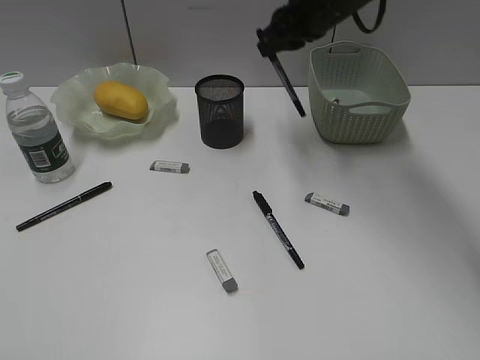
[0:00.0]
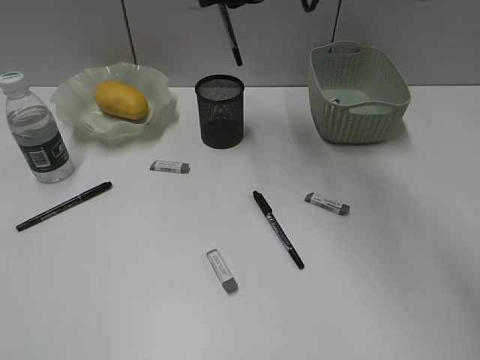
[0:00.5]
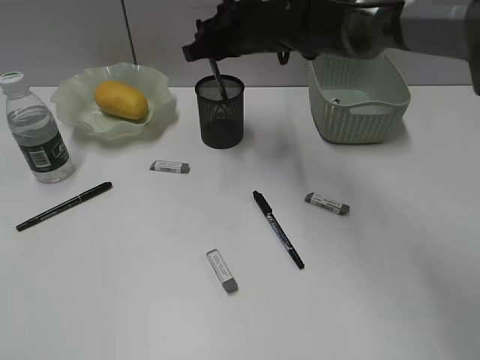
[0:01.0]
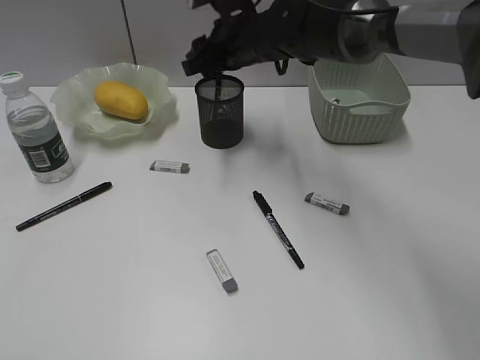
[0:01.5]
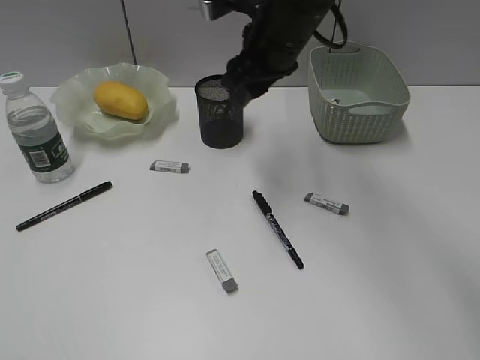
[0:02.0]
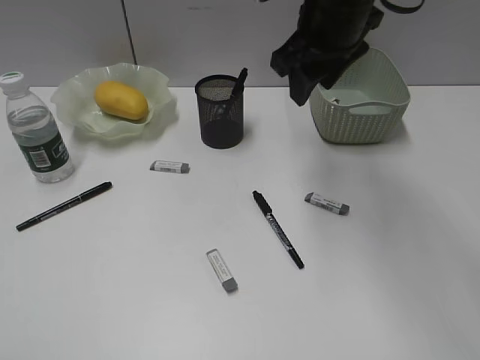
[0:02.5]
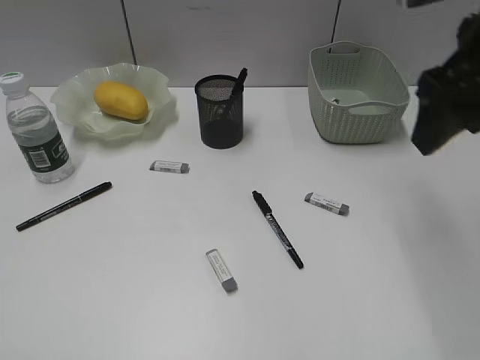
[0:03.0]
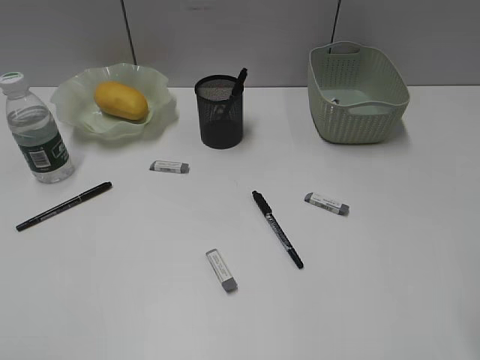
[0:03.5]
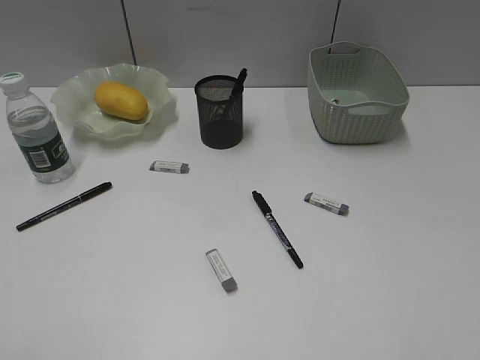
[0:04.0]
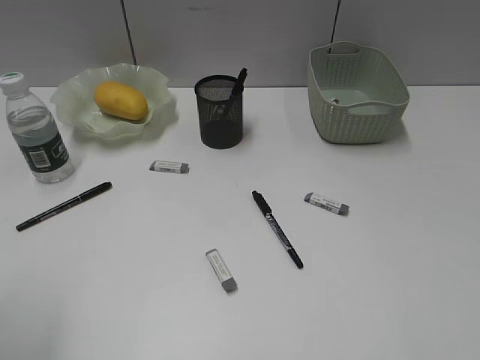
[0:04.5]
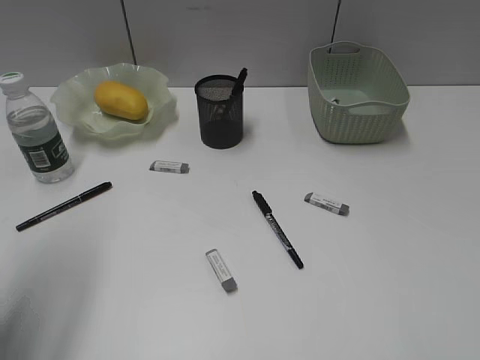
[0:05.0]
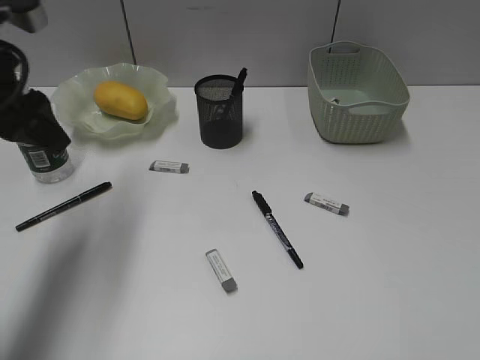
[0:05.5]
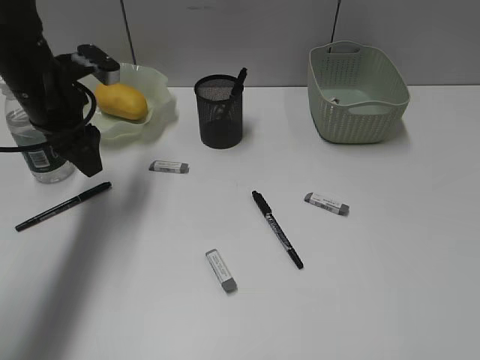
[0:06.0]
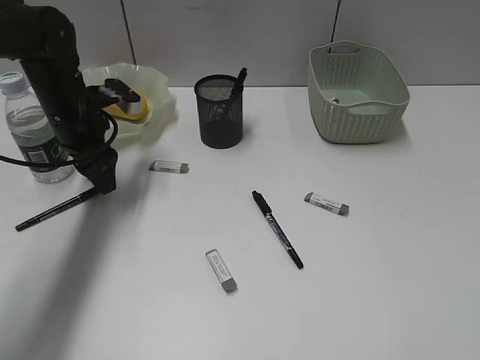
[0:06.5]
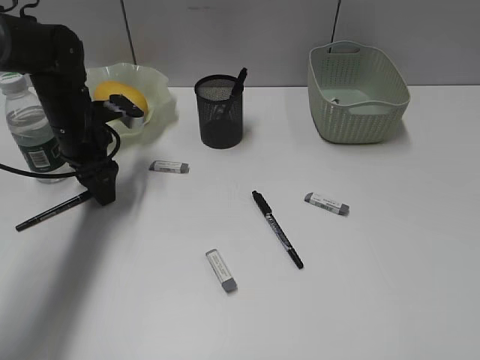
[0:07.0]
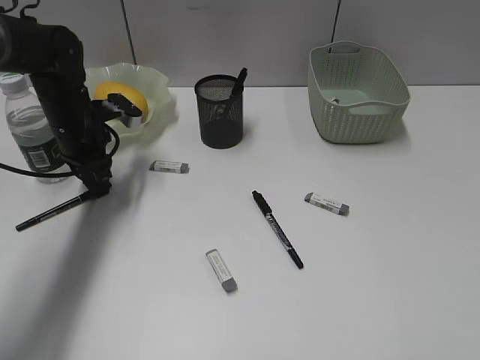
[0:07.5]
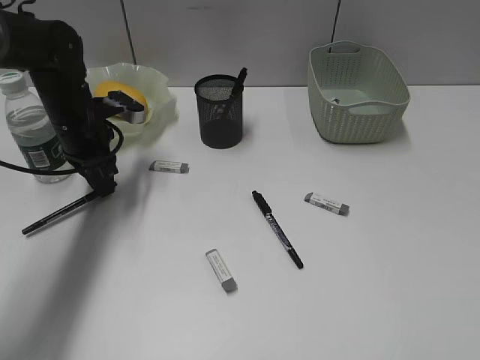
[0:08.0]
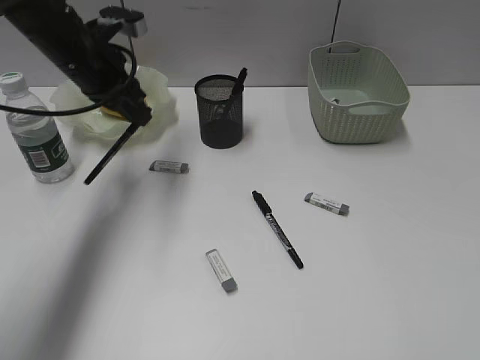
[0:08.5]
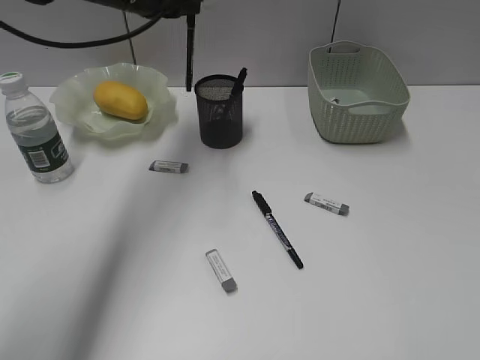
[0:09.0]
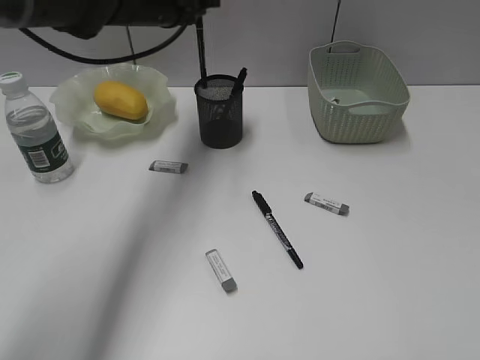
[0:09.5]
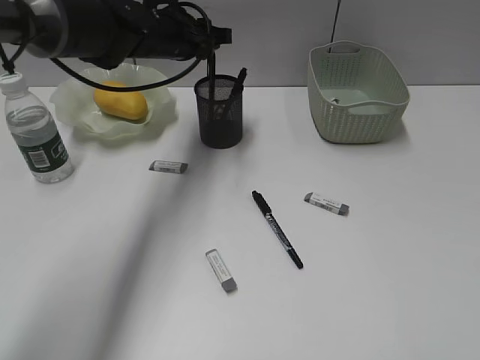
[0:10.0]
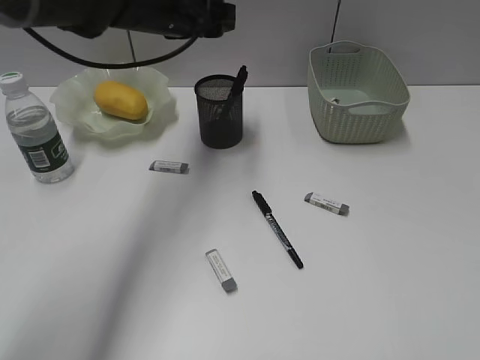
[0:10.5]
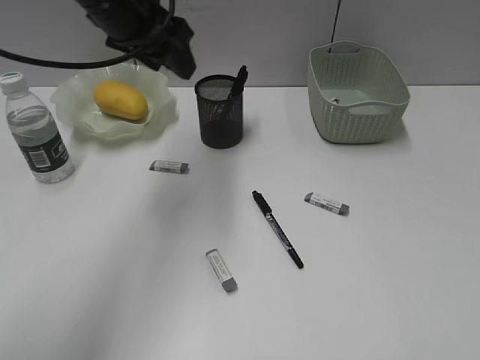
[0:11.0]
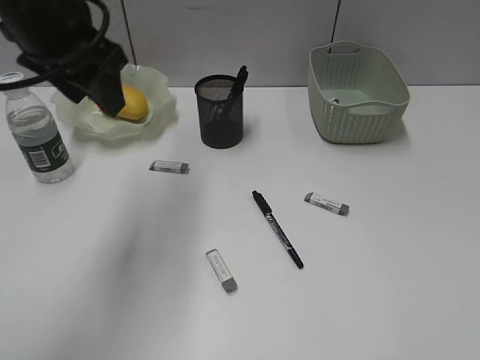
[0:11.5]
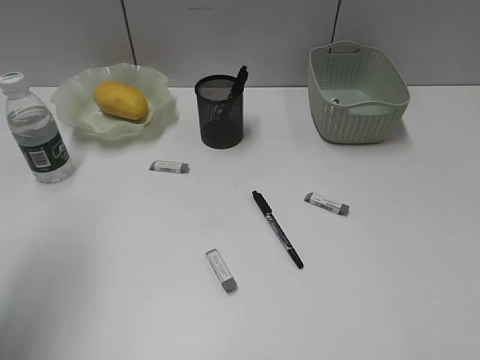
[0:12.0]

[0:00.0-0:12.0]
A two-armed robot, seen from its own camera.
Step, 0:00.0 to 0:01.5: Place the black pen in pen holder with right gripper.
Step, 0:02.0 to 0:07.5: Grasp the black pen with left gripper.
Step, 0:08.0 to 0:10.0: Place the black pen in pen holder with left gripper.
0:00.0 to 0:02.0: The right gripper goes about 5 cm backward, and opens its fingers.
0:02.0 to 0:04.0: The right gripper shifts about 40 cm backward and to the right, and opens.
0:04.0 to 0:06.0: The left gripper goes some 40 cm forward.
0:06.0 to 0:08.0: The left gripper shifts some 5 cm downward, and closes up.
0:08.0 to 0:10.0: The left gripper moves to the right, upward and forward, about 15 cm, and opens its fingers.
0:10.0 to 0:12.0: The left gripper goes some 35 cm backward and to the left.

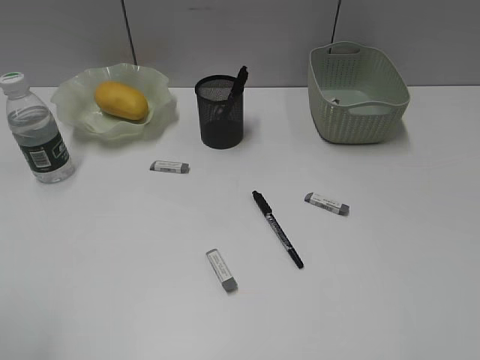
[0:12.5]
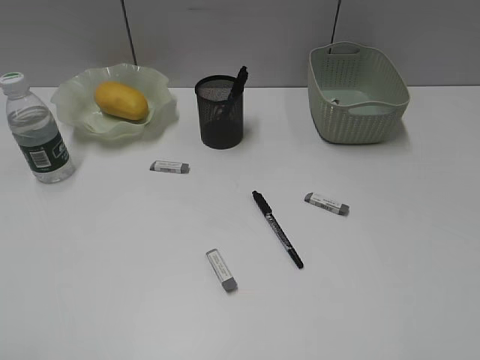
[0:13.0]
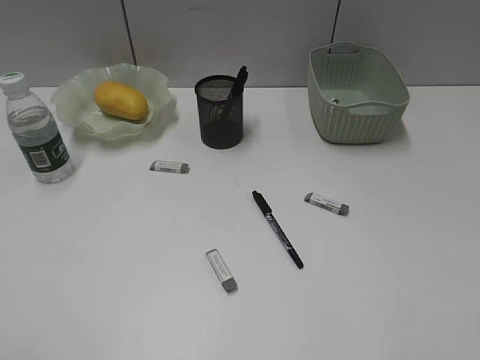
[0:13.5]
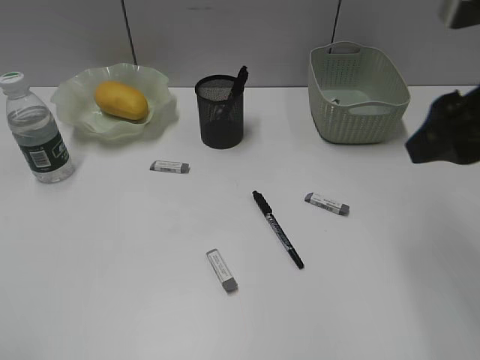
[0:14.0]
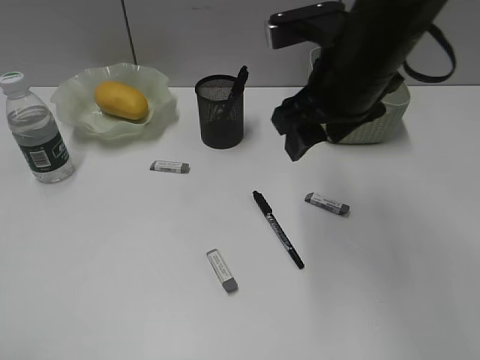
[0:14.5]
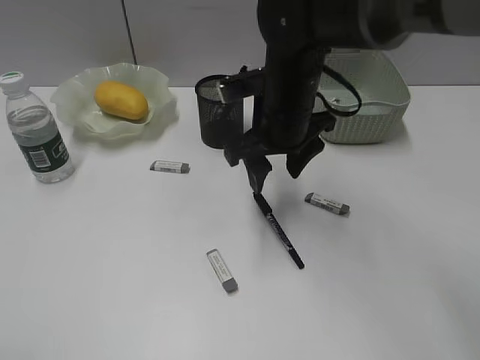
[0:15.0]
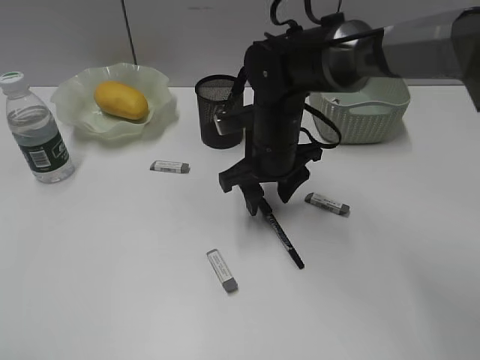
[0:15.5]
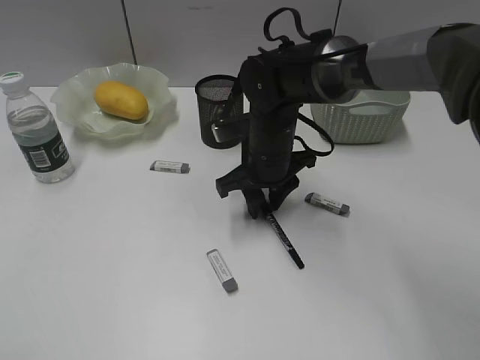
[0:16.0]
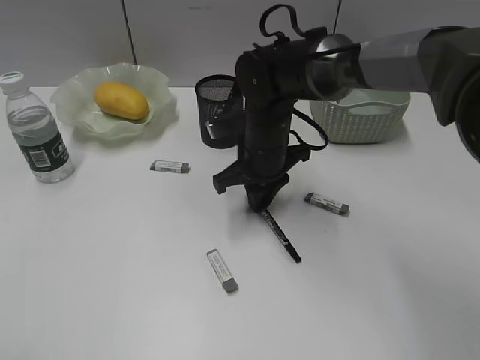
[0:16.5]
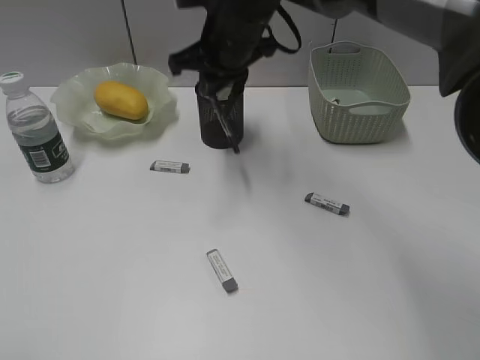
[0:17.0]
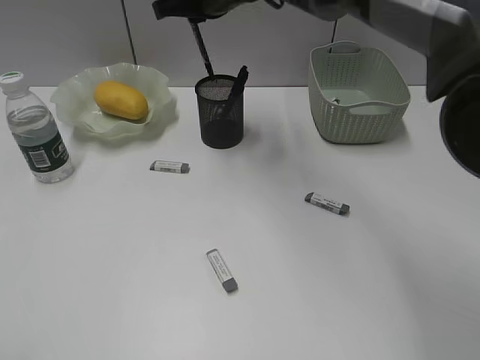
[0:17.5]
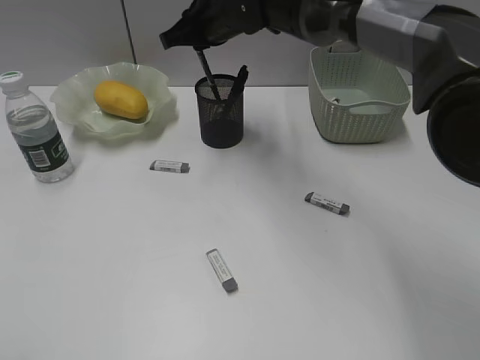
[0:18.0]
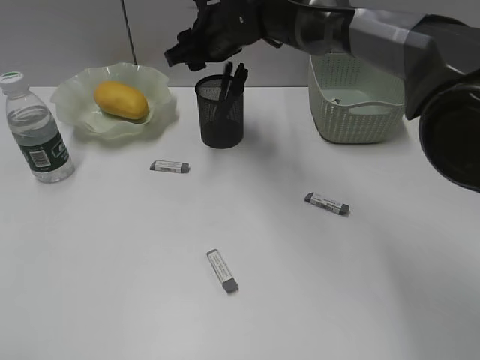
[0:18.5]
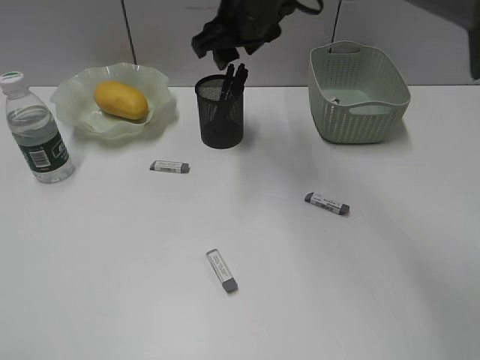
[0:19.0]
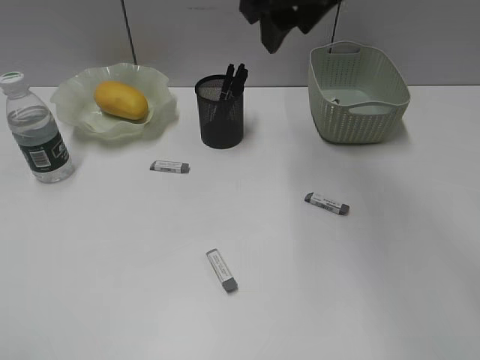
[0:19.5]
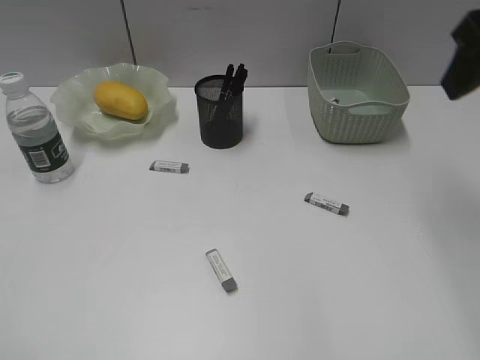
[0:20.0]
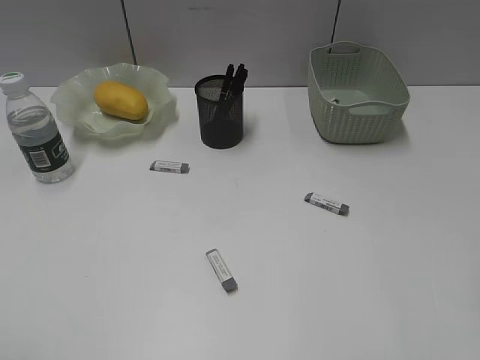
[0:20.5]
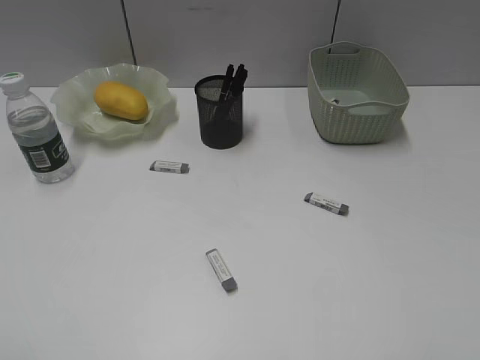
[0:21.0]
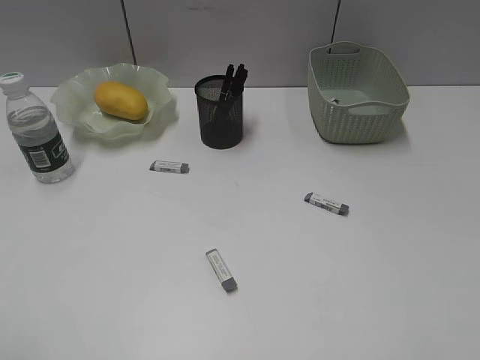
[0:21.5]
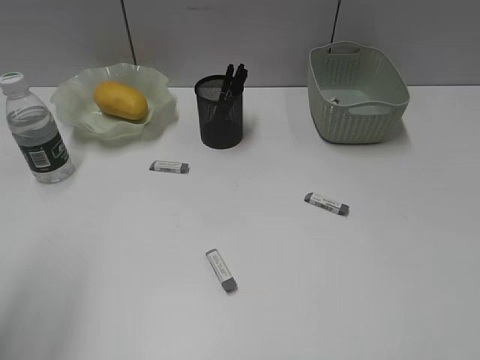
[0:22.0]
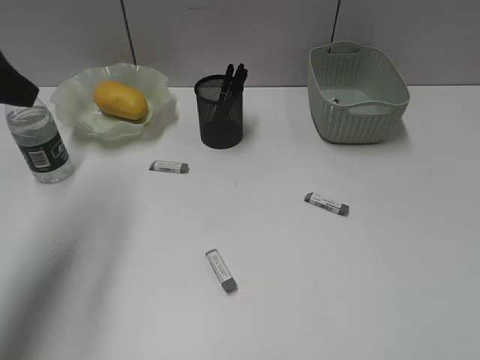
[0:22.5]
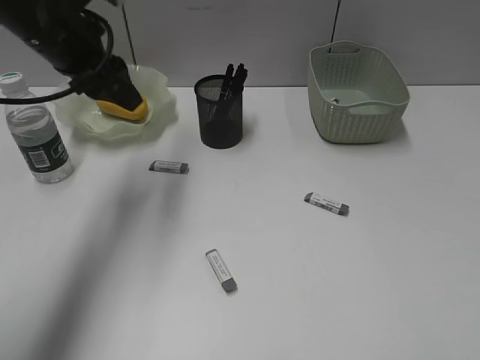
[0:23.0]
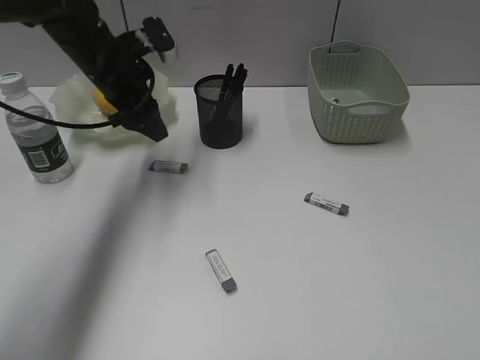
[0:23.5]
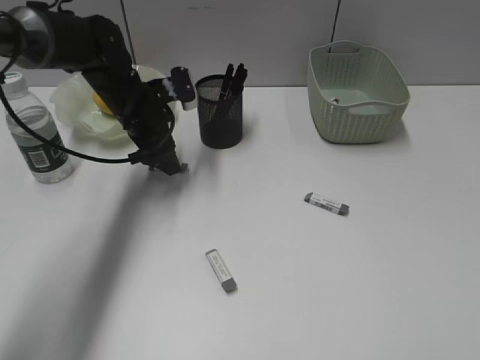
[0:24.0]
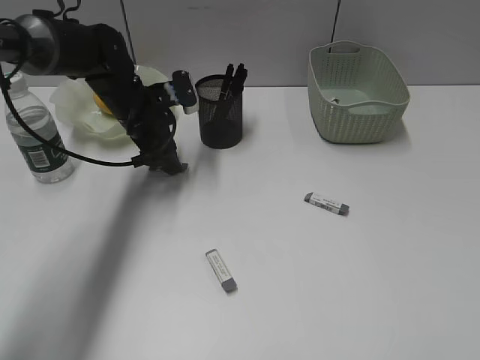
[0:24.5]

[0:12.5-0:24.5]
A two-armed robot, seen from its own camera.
Step, 0:12.5 to 0:16.0: Grasp the black pen with right gripper.
Step, 0:16.5 to 0:19.0: Place the black pen in pen holder with right gripper.
0:12.5 to 0:14.5: The right gripper shifts roughly 35 cm forward and to the left.
0:14.5 to 0:16.5: The right gripper moves downward, forward and to the left, about 15 cm, and closes.
0:16.5 to 0:18.5: The right gripper travels upward and forward by some 15 cm, and opens up.
0:18.5 to 0:20.5: The right gripper travels backward and to the right by about 40 cm.
0:20.5 to 0:22.5: The left gripper travels forward by some 30 cm.
0:22.5 to 0:24.5: The left gripper is displaced downward, forward and to the right by roughly 30 cm.

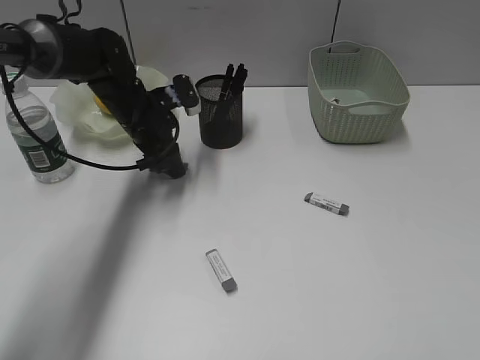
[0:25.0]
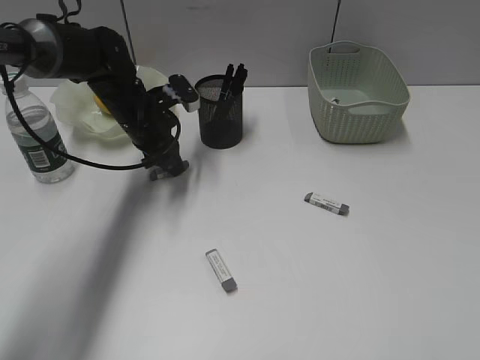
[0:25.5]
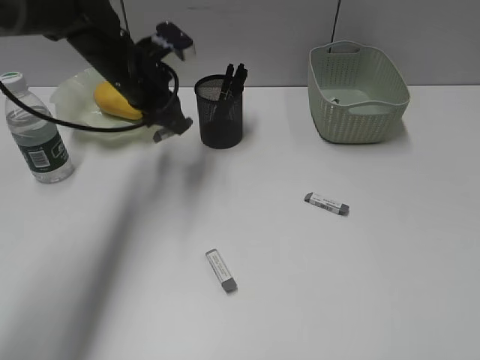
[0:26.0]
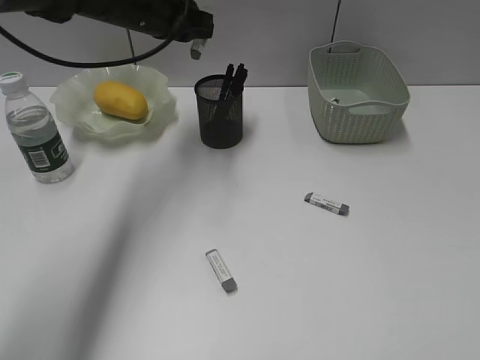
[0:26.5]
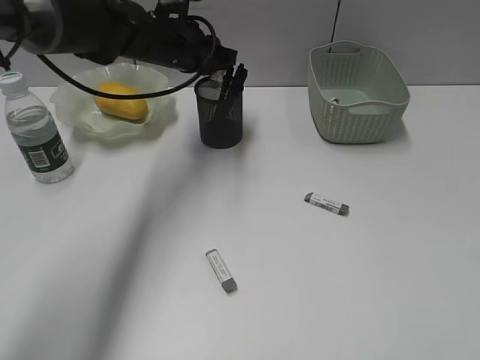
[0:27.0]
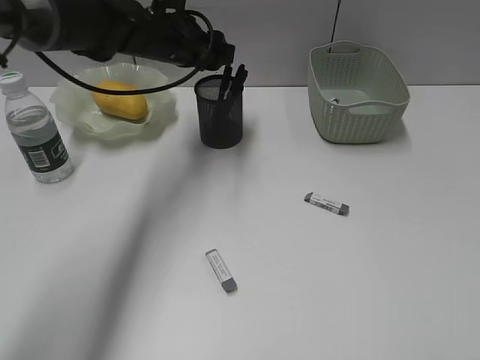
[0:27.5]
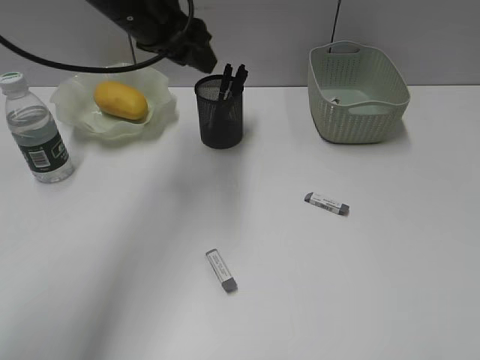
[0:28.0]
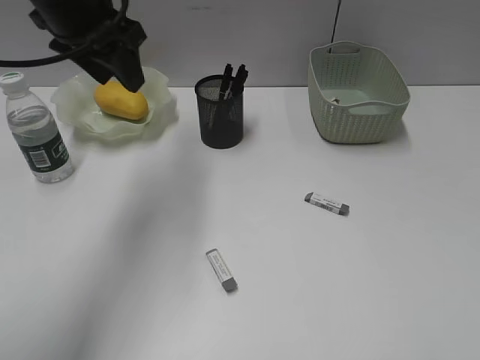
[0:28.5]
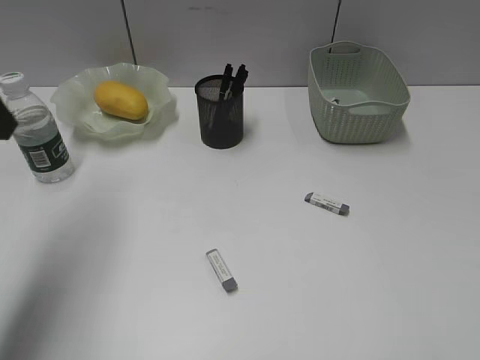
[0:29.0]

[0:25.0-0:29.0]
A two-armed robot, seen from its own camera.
Step, 0:26.0 to 0:27.5: Place the eraser in pen holder with left gripper.
0:25.0 to 0:27.0: The left gripper shifts approximately 10 cm upward.
0:27.0 to 0:29.0: The left gripper travels backward, to the left and upward by roughly 30 cm, and opens.
